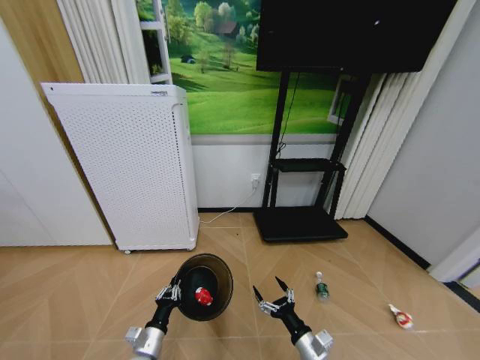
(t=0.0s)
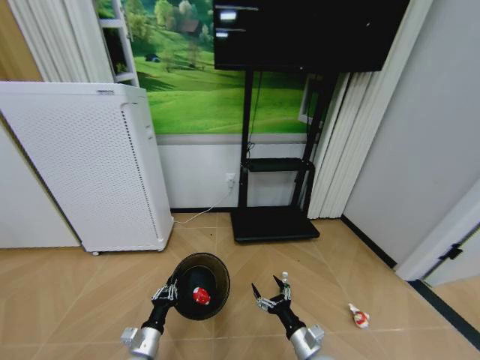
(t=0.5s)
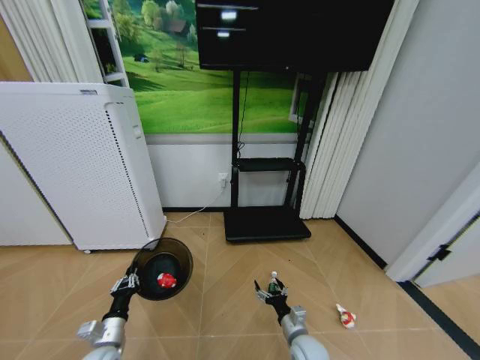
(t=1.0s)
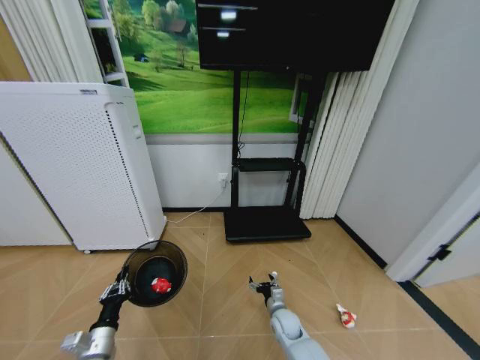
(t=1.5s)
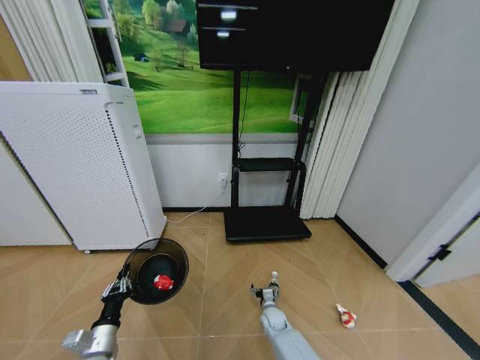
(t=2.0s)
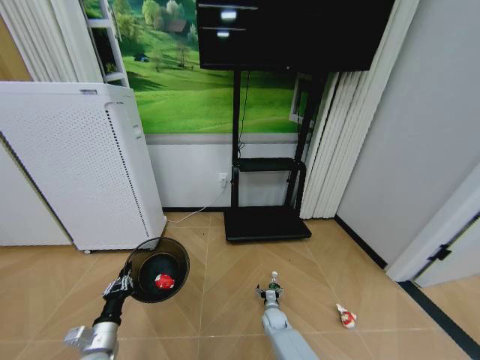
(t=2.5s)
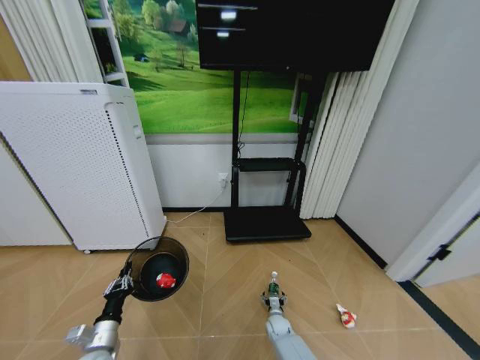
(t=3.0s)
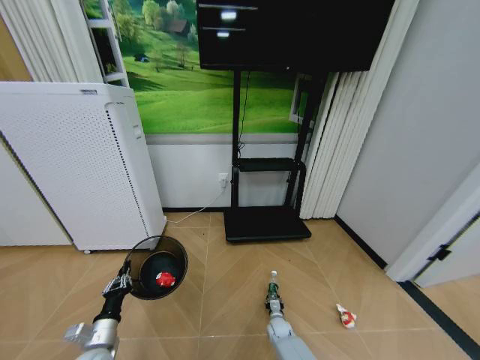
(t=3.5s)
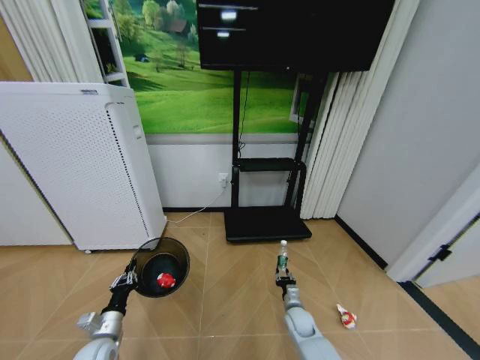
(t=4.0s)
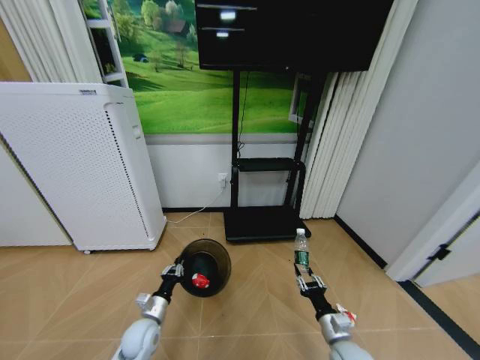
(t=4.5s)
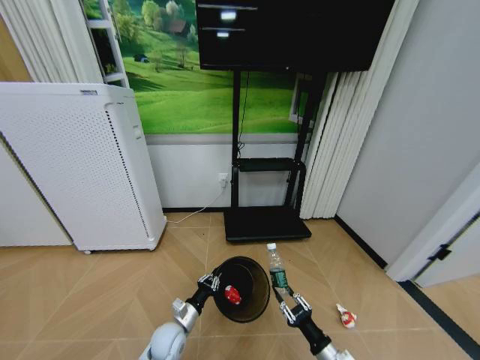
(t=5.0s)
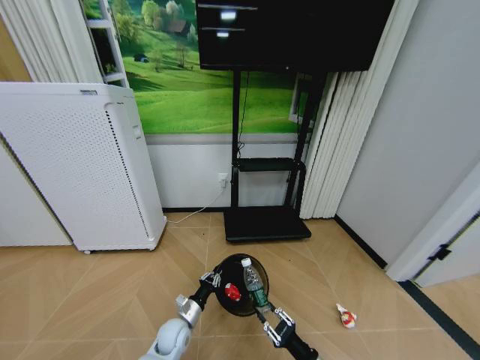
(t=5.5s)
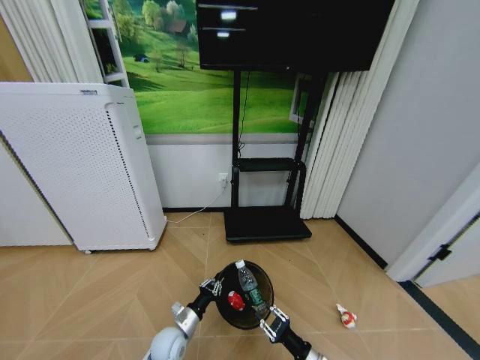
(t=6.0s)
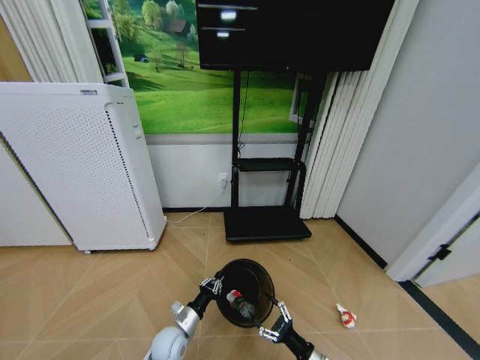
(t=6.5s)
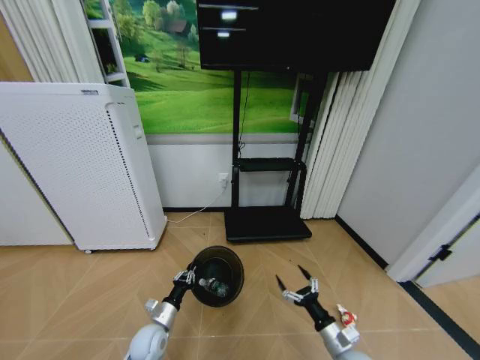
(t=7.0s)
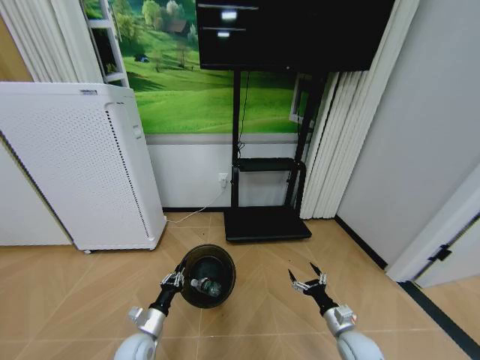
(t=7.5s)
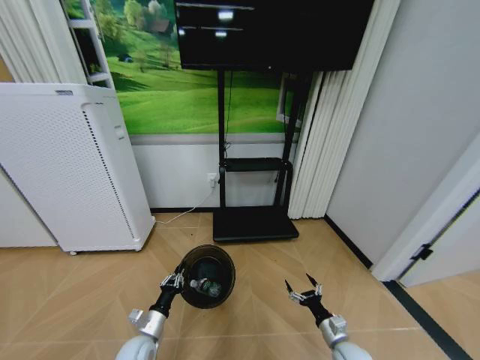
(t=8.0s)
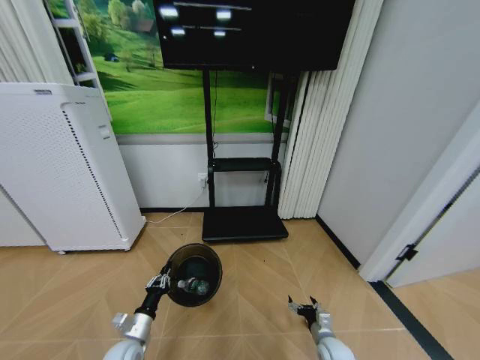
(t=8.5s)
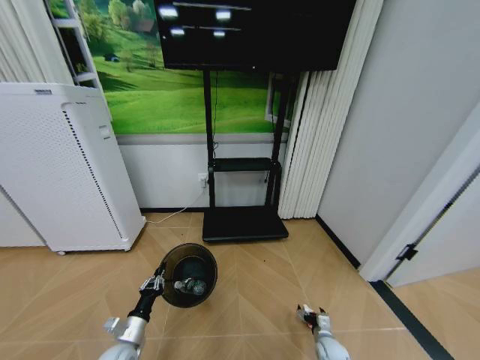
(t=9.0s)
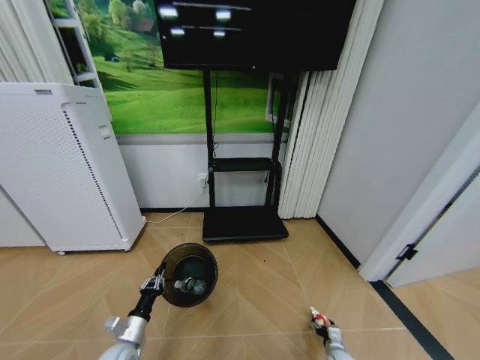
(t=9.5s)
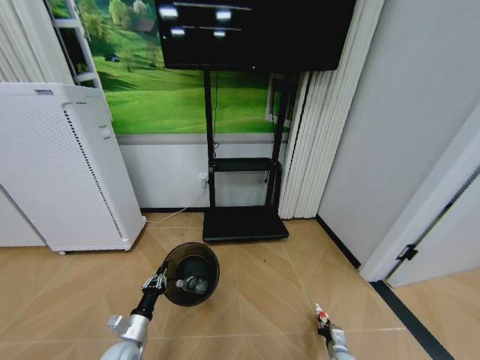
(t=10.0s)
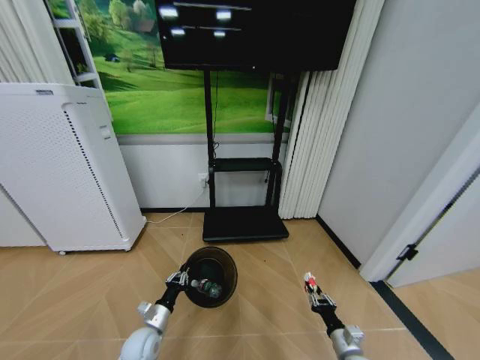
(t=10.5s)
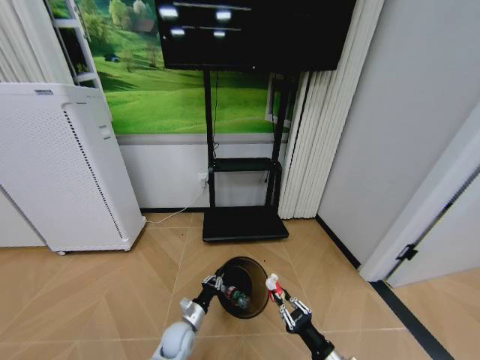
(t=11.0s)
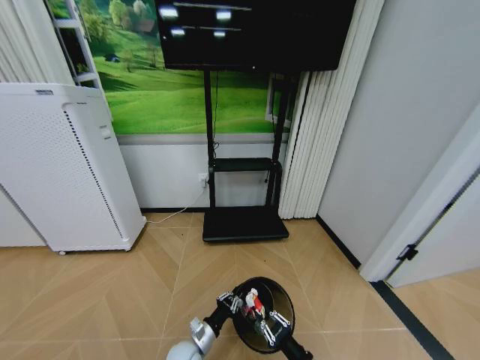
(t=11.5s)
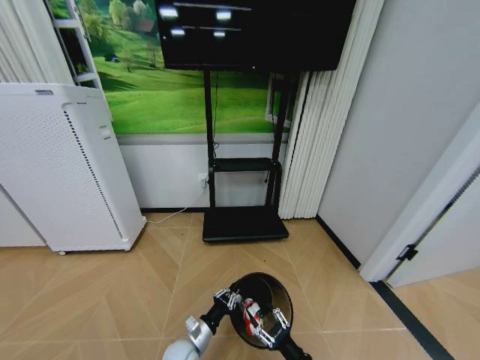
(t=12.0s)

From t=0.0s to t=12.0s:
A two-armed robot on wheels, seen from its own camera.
Task of the whole recording: Pick up the trash bin and place the garbage on the floor into it.
From t=0.0s to t=2.0s: The right gripper is displaced forward and downward by about 25 cm, while the left gripper goes roughly 10 cm to the left.
From t=2.0s to t=4.0s: The right gripper moves to the right, approximately 5 cm, reaches about 5 cm downward, then returns, and closes its fingers.
From t=4.0s to t=6.0s: The left gripper goes approximately 15 cm to the right; the right gripper goes about 20 cm backward.
From t=6.0s to t=8.0s: The left gripper shifts roughly 10 cm to the left. The right gripper is displaced to the right and forward by roughly 10 cm, and opens.
From t=8.0s to t=10.0s: The right gripper heads downward, covering about 10 cm, and closes up.
From t=10.0s to t=12.0s: The left gripper goes some 15 cm to the right. The right gripper travels upward, to the left and backward by some 25 cm, and opens its fingers.

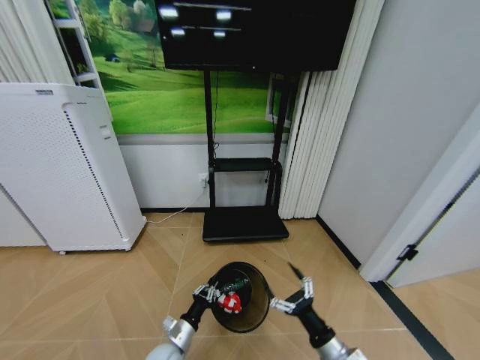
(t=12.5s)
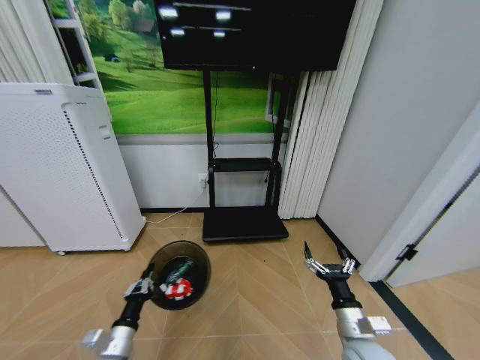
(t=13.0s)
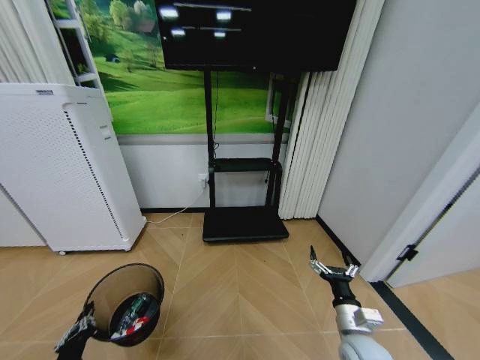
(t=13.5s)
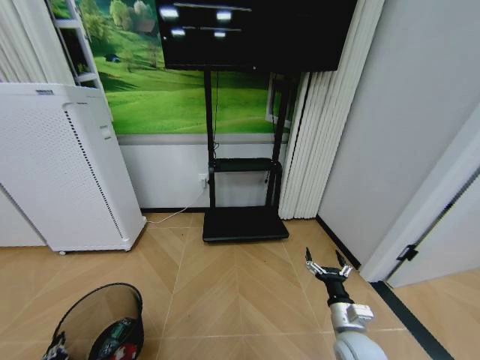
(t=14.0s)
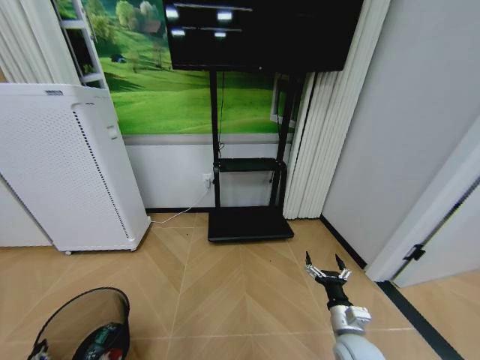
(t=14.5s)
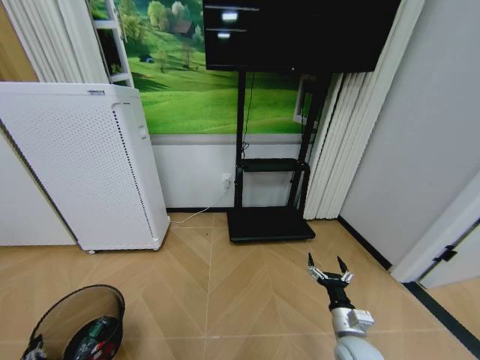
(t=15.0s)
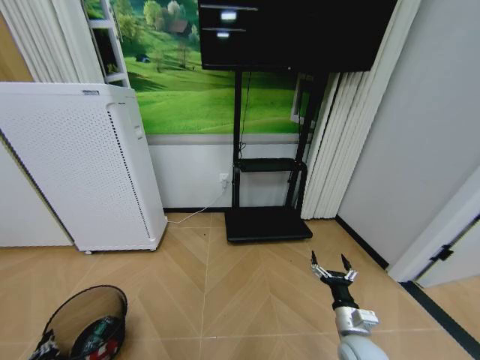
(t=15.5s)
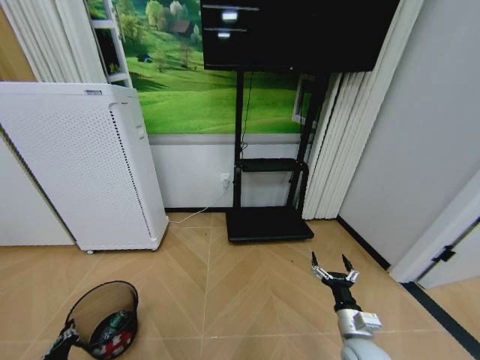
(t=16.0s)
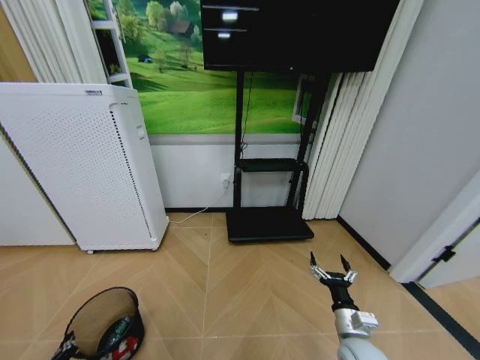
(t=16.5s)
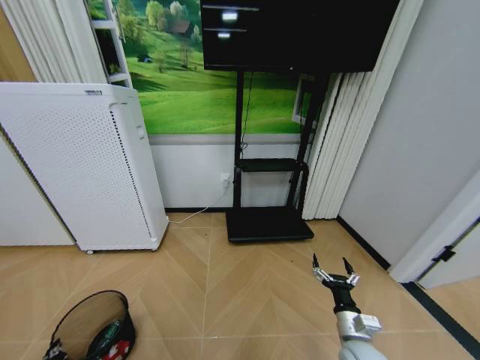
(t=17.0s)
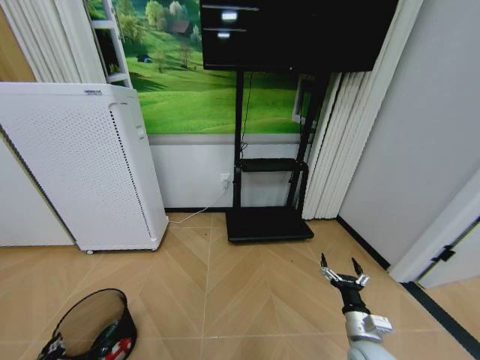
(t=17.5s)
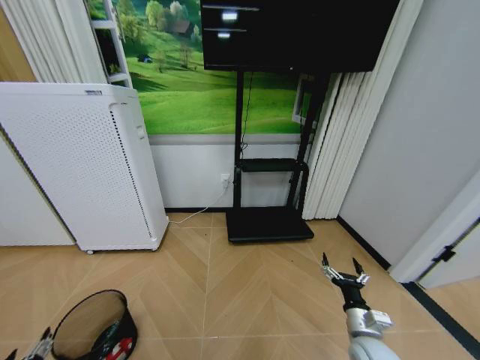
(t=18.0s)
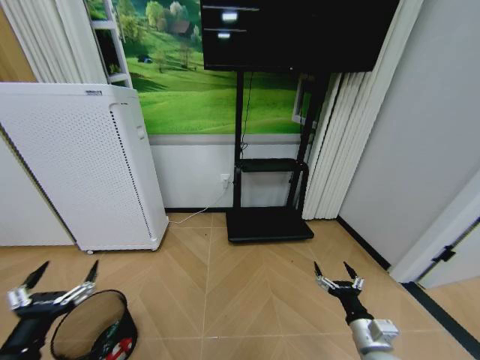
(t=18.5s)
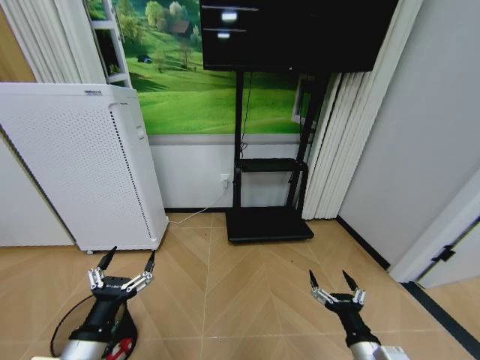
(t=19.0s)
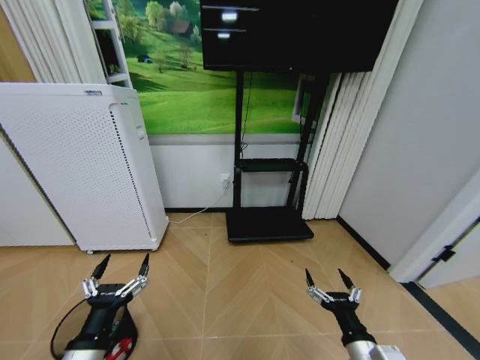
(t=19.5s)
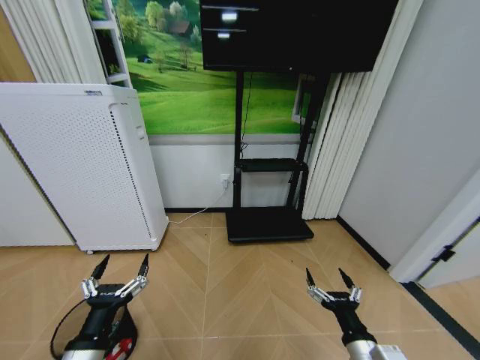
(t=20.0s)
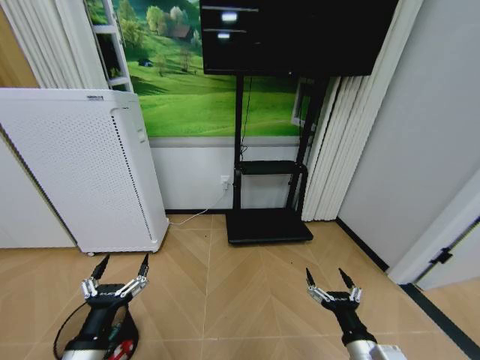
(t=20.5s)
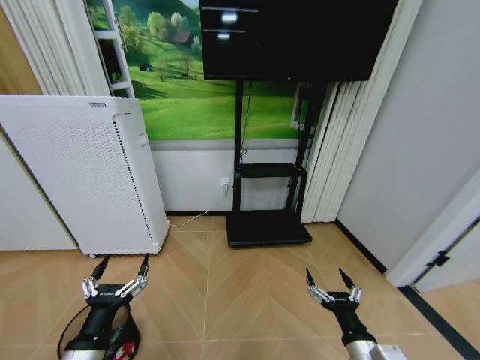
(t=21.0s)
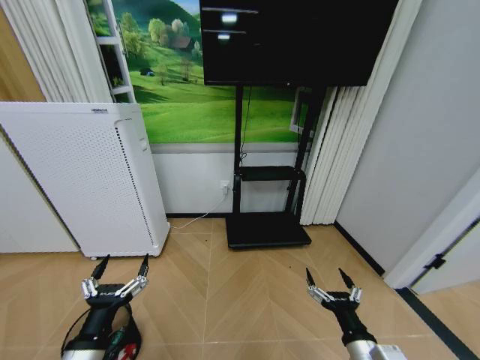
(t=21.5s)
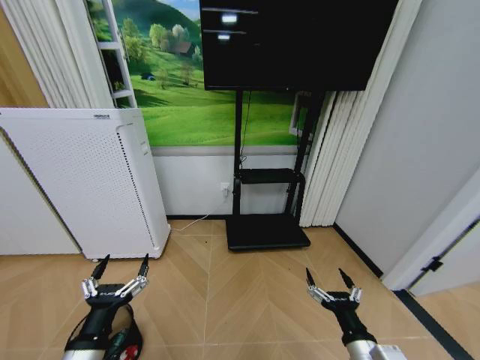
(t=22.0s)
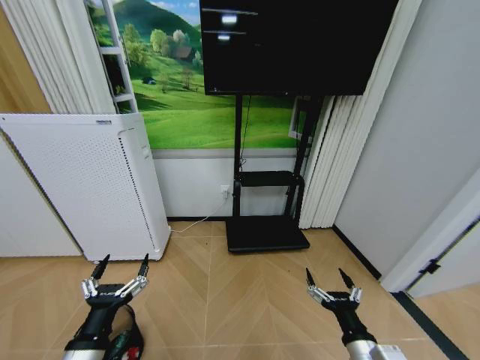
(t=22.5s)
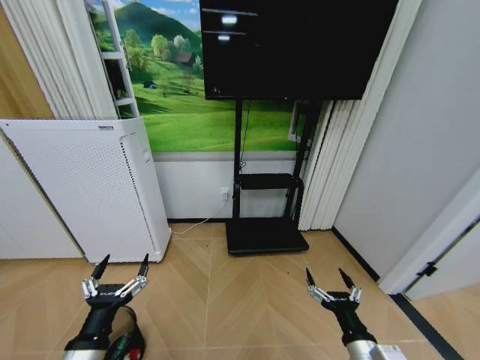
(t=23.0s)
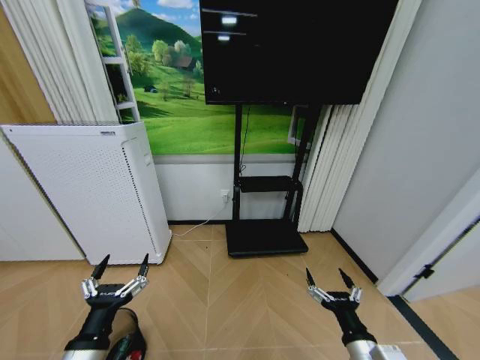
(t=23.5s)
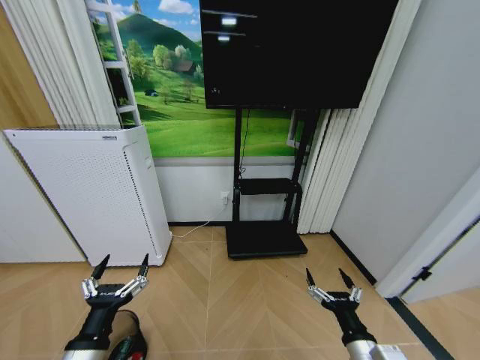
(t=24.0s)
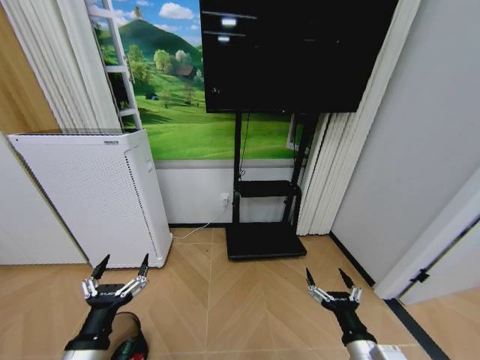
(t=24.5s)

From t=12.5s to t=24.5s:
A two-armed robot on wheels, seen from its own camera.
Task of the whole recording: Pick up the trash bin and place the garbage on the floor into it.
From t=12.5s to t=14.5s: The left gripper heads to the left, backward and upward, covering about 30 cm; the right gripper is displaced forward by approximately 5 cm.
From t=14.5s to t=16.5s: The left gripper moves downward and forward, roughly 10 cm.
From t=16.5s to t=18.5s: The left gripper is displaced upward by about 25 cm, and opens its fingers.
From t=18.5s to t=20.5s: The right gripper shifts about 10 cm to the left and backward, while the left gripper heads to the right, covering some 10 cm.
From t=20.5s to t=24.5s: Both grippers stay put.

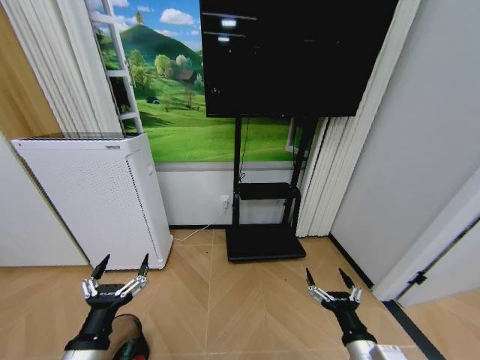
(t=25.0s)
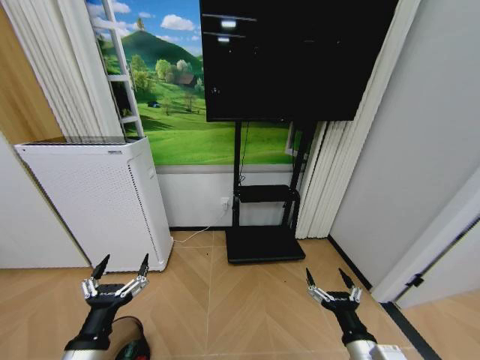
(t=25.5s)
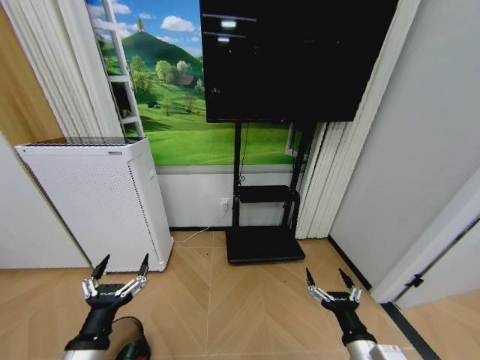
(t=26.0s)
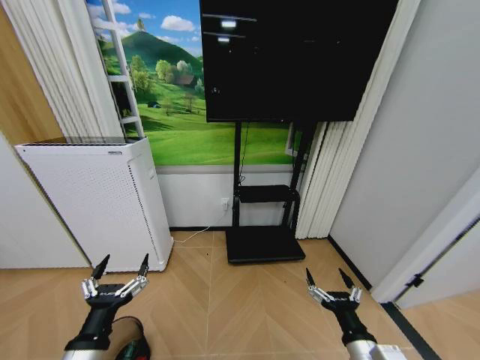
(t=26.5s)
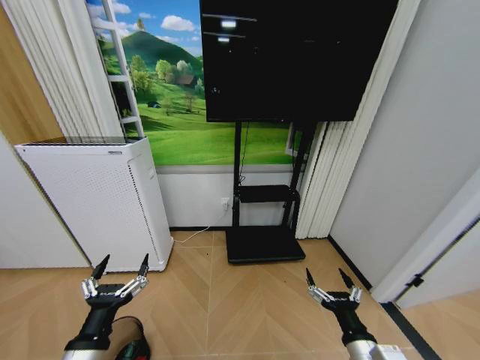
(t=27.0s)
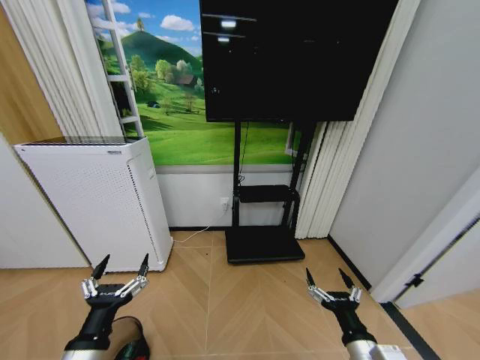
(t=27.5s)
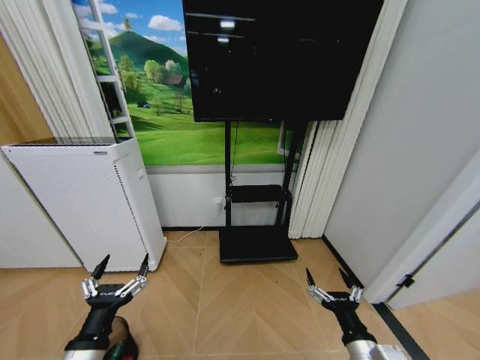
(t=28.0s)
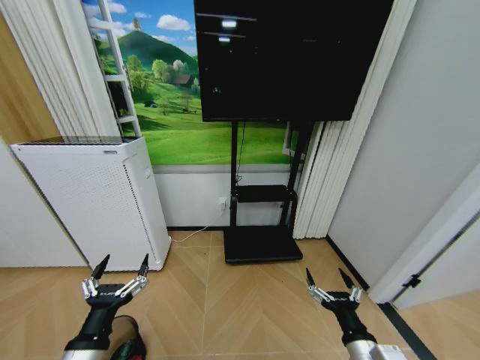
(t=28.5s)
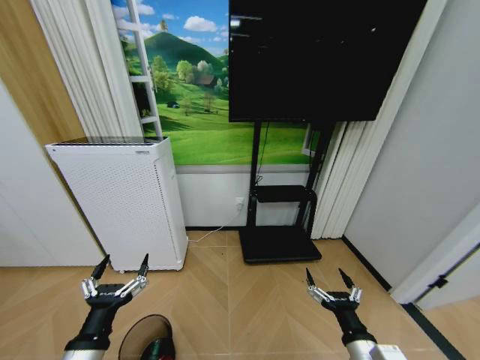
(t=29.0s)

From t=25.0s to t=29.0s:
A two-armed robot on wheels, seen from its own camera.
Task of the whole recording: Pick up the trash bin and place the garbage on the floor into it.
From t=25.0s to t=27.0s: Neither gripper changes place.
